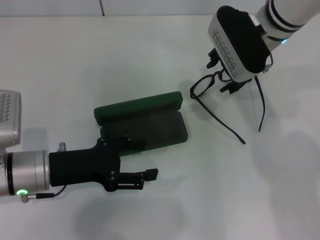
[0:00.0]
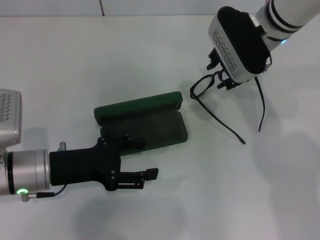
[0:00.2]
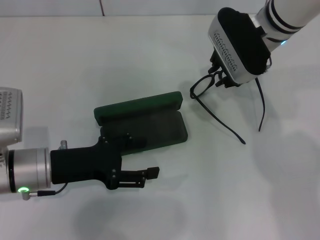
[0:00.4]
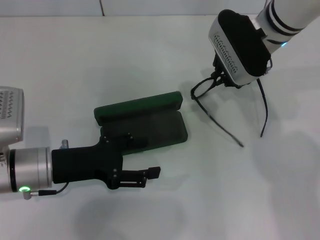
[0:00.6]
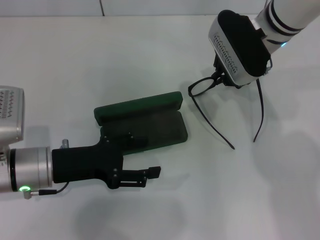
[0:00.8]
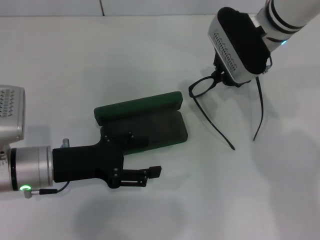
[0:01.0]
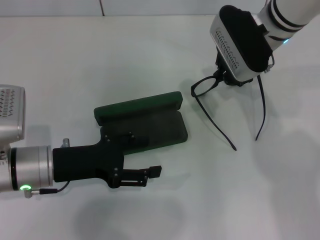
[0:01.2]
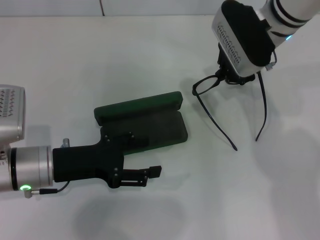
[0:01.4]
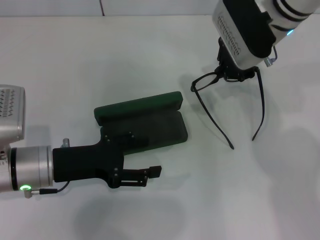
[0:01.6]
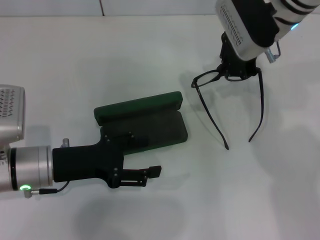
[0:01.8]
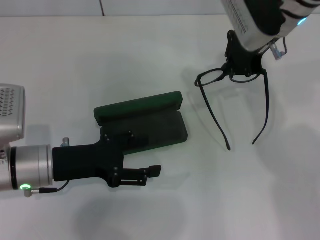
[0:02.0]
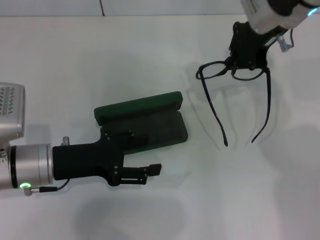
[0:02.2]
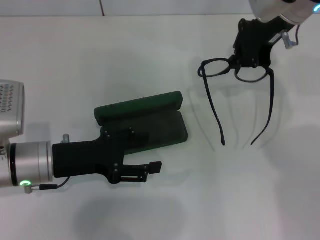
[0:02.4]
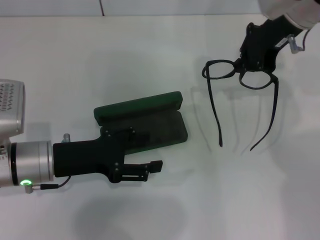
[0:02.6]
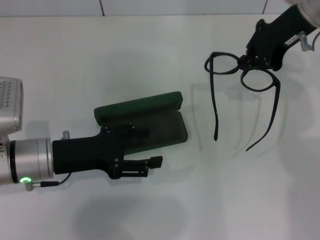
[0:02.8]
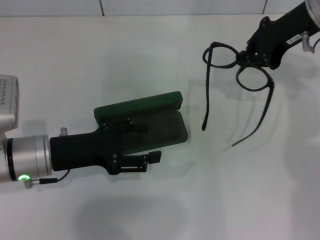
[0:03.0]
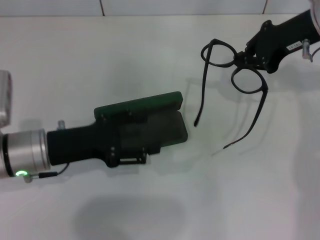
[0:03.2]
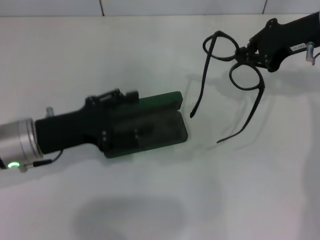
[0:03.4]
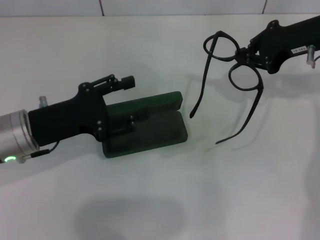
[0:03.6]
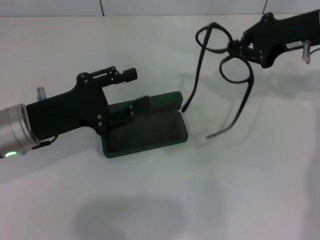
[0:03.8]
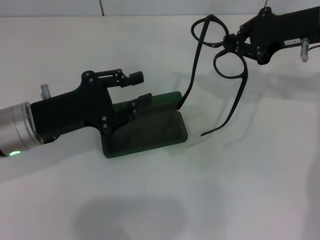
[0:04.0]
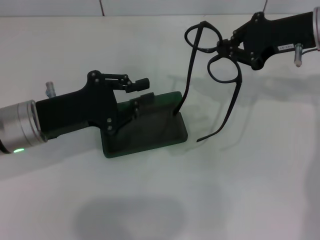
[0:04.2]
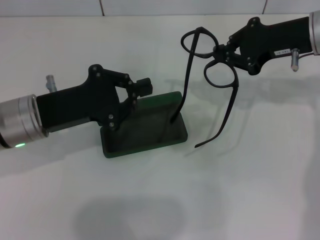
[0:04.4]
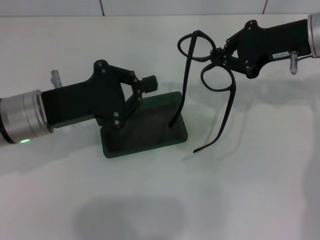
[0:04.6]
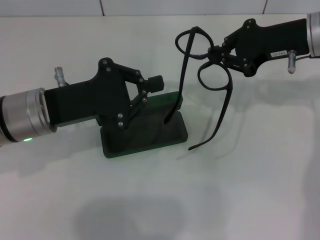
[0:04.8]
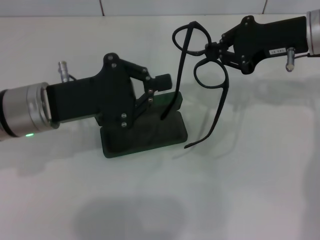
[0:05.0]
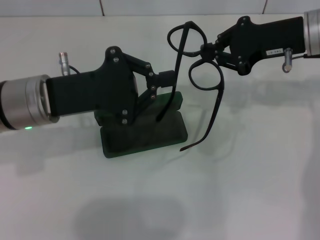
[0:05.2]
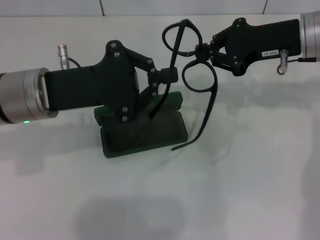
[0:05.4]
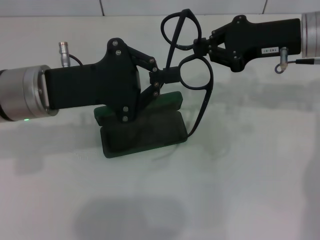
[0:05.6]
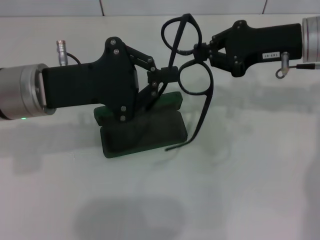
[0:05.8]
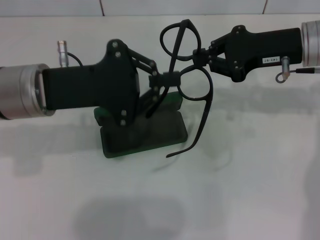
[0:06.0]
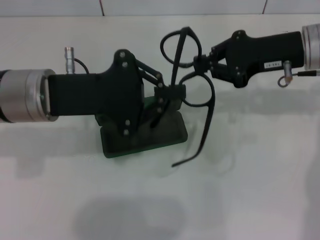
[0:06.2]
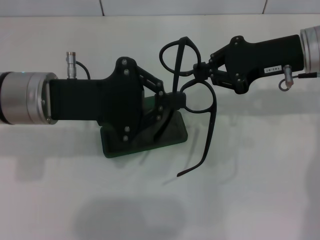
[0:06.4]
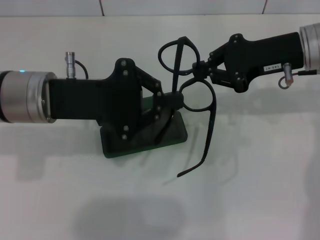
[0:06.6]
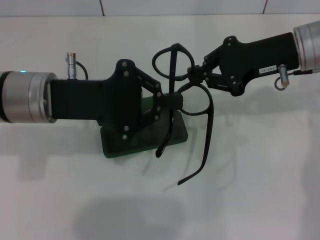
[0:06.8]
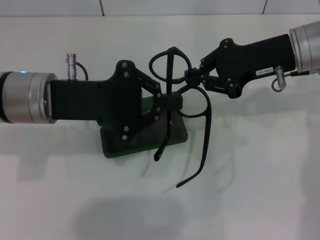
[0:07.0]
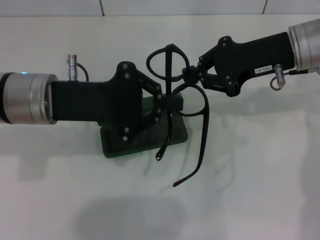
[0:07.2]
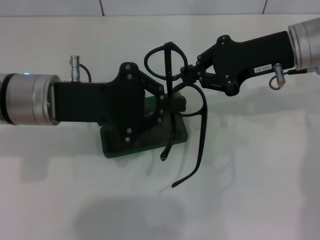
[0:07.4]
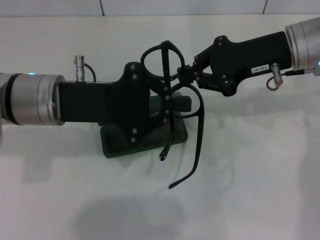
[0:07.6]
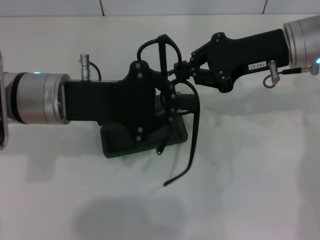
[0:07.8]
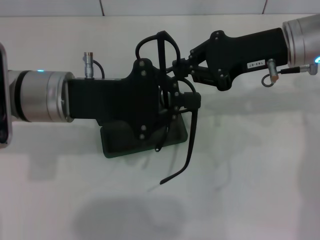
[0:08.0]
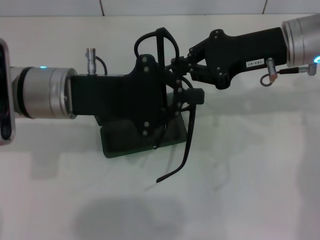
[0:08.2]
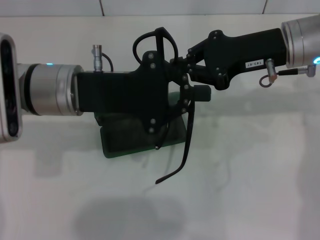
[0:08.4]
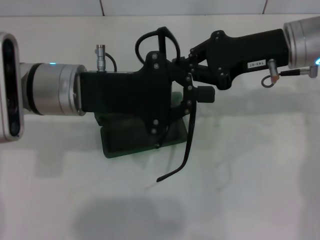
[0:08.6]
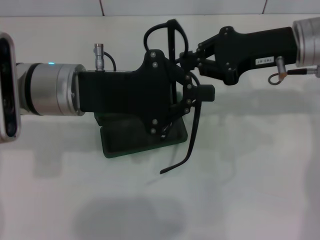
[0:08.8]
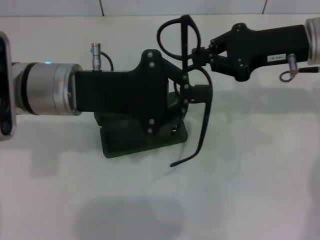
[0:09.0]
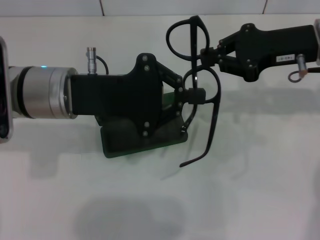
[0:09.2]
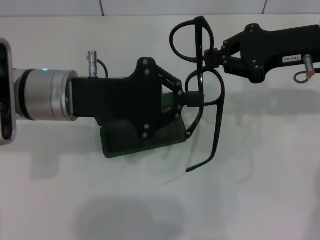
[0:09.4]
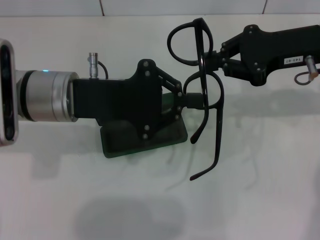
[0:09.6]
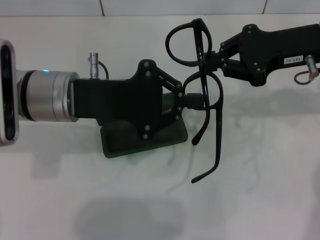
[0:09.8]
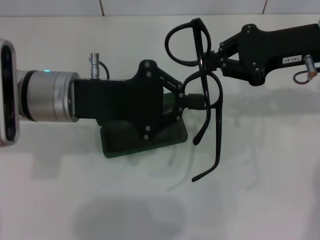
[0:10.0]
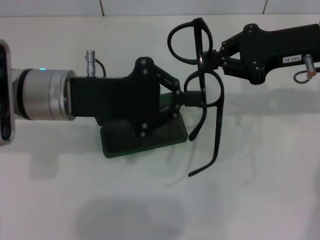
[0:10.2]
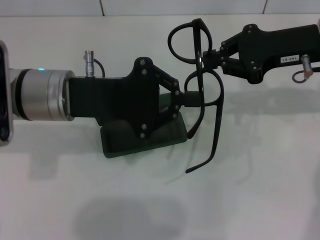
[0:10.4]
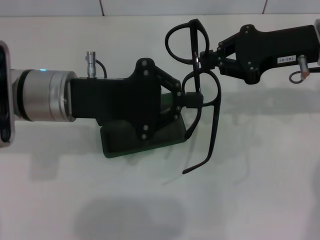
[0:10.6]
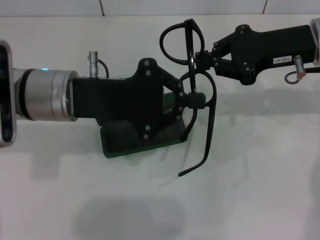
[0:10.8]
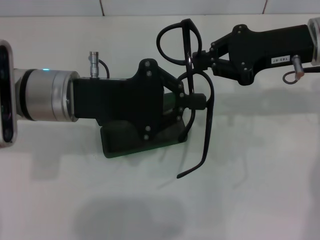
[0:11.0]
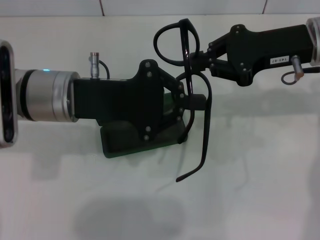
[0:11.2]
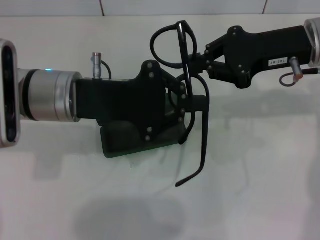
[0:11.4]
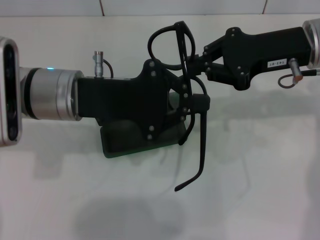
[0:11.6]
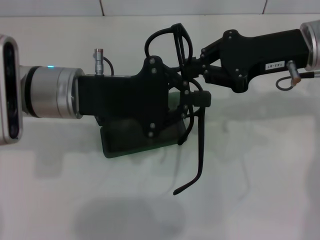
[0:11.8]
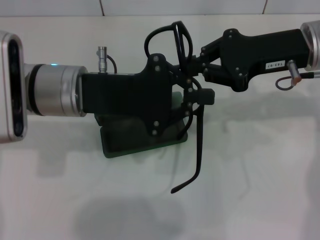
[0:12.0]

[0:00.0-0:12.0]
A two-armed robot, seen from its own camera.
0:00.0 to 0:01.6: The right gripper closes up.
0:01.6 to 0:03.0: The right gripper is displaced to the right by about 10 cm.
0:03.0 to 0:04.4: The left gripper closes.
0:04.4 to 0:06.0: The left gripper moves upward, some 5 cm.
0:06.0 to 0:12.0: There are only small adjustments of the grippers.

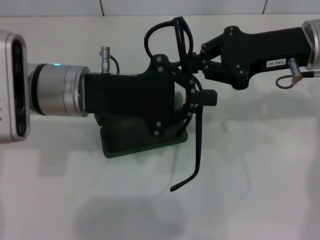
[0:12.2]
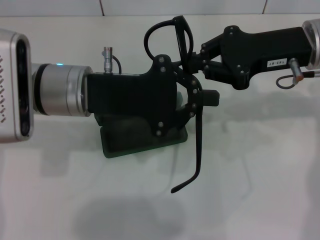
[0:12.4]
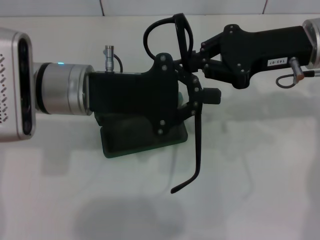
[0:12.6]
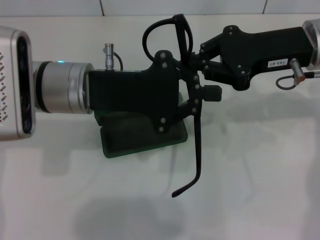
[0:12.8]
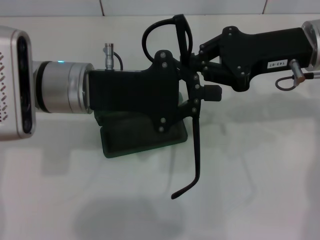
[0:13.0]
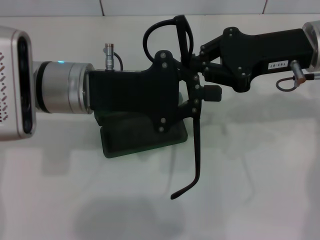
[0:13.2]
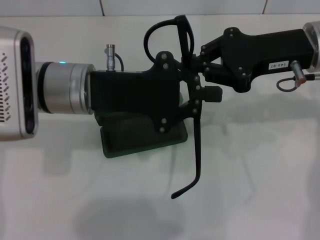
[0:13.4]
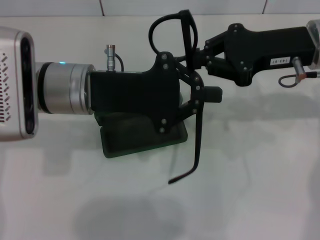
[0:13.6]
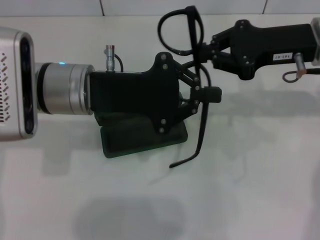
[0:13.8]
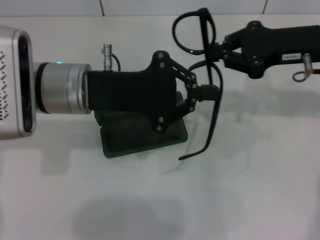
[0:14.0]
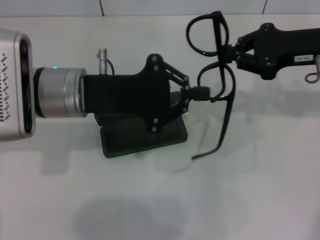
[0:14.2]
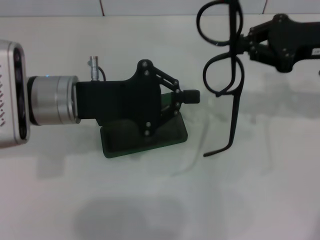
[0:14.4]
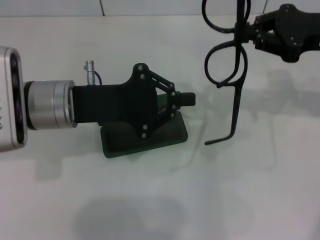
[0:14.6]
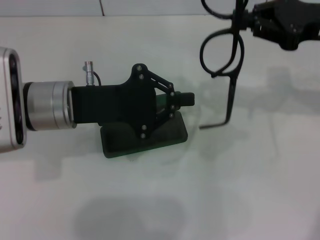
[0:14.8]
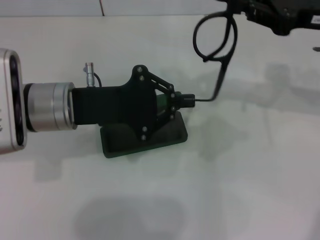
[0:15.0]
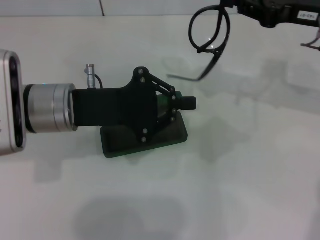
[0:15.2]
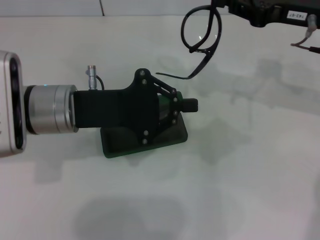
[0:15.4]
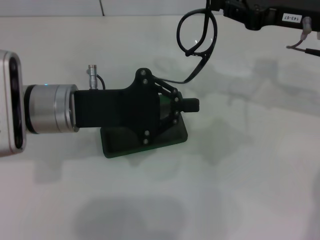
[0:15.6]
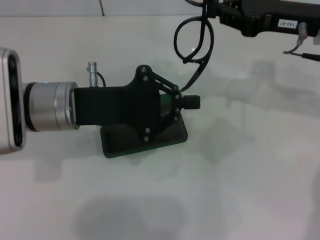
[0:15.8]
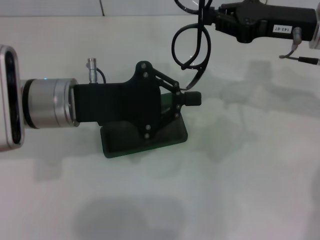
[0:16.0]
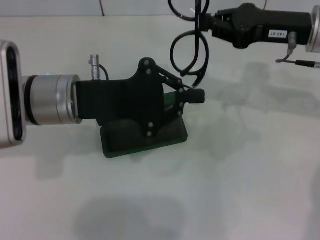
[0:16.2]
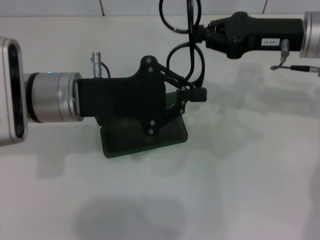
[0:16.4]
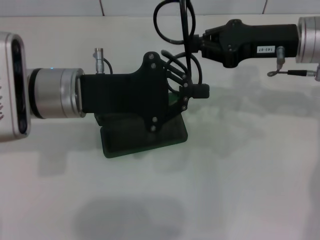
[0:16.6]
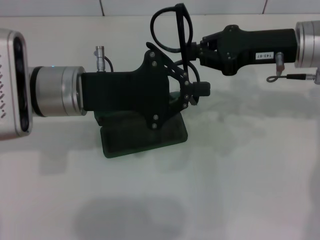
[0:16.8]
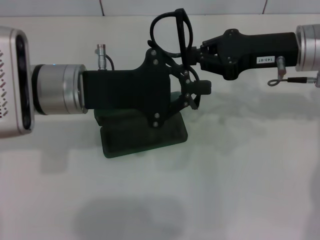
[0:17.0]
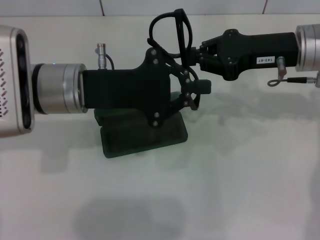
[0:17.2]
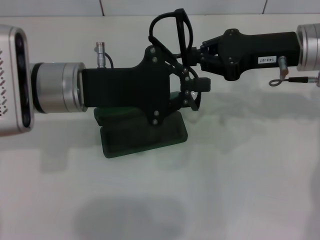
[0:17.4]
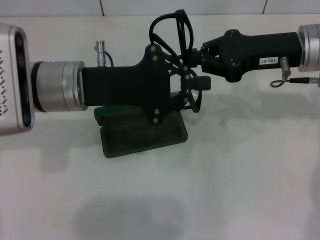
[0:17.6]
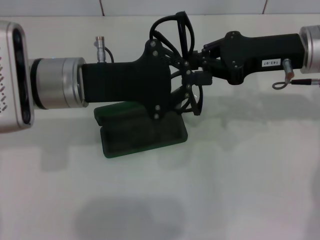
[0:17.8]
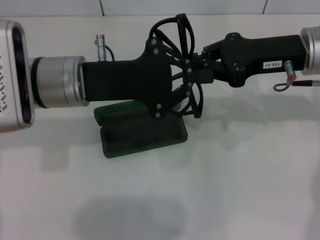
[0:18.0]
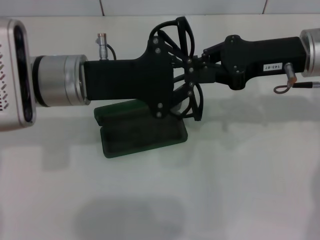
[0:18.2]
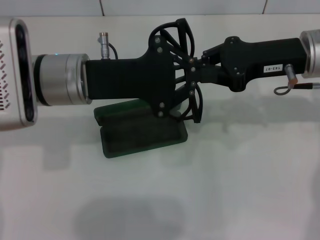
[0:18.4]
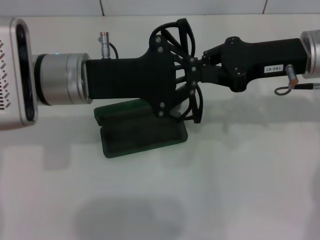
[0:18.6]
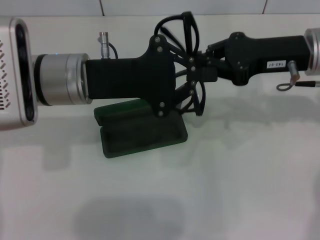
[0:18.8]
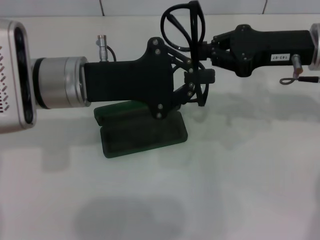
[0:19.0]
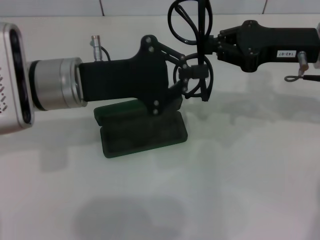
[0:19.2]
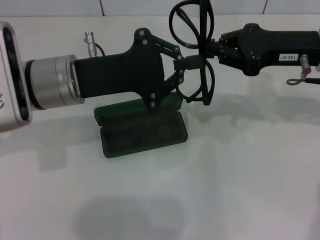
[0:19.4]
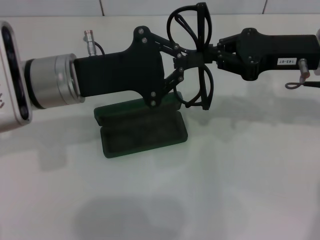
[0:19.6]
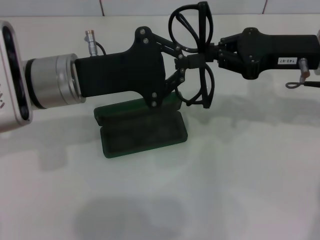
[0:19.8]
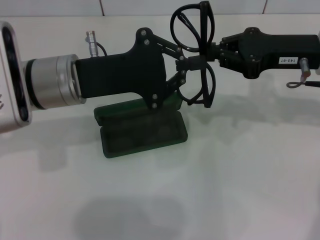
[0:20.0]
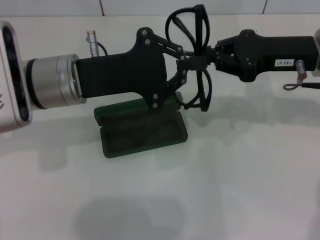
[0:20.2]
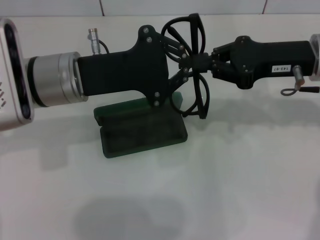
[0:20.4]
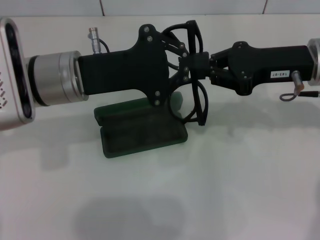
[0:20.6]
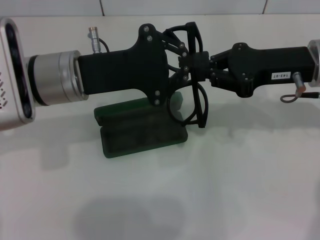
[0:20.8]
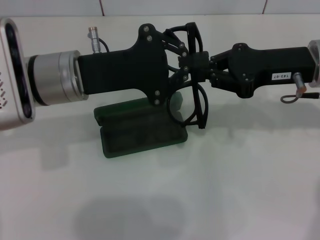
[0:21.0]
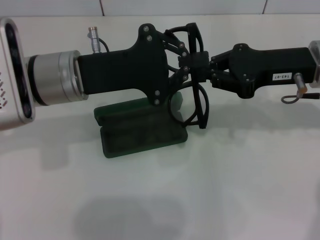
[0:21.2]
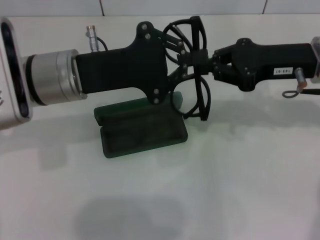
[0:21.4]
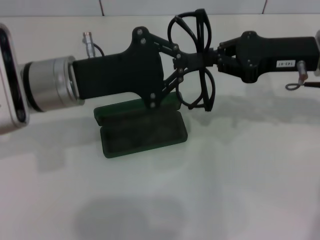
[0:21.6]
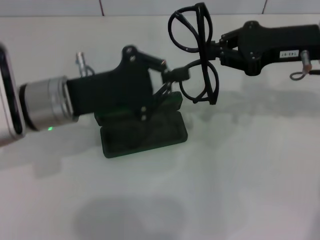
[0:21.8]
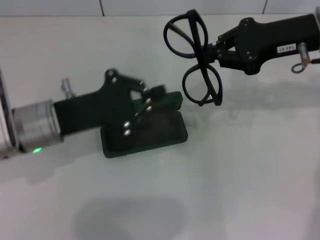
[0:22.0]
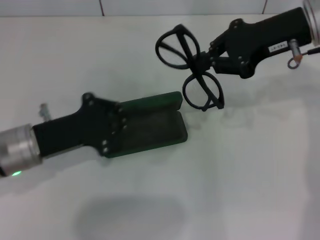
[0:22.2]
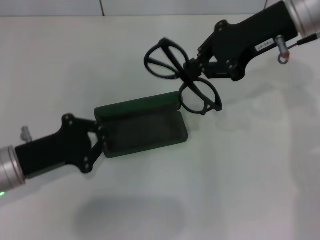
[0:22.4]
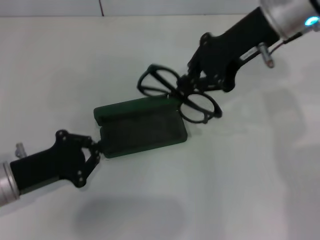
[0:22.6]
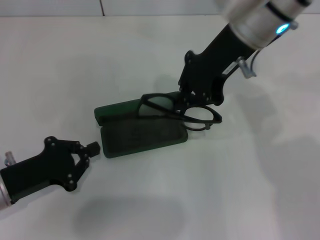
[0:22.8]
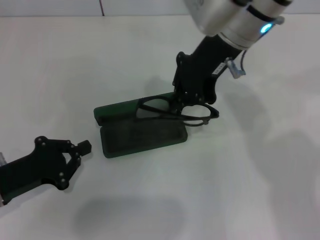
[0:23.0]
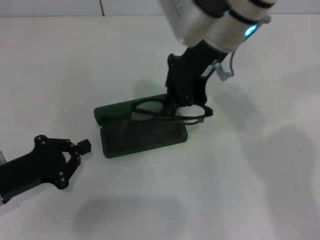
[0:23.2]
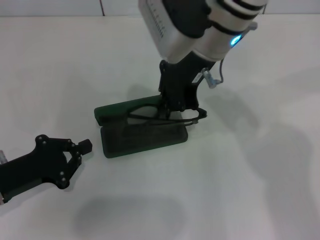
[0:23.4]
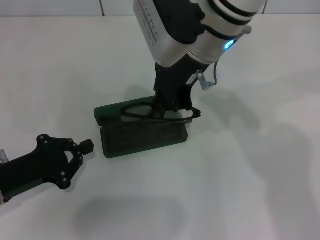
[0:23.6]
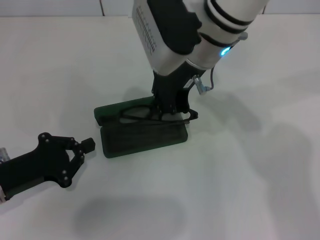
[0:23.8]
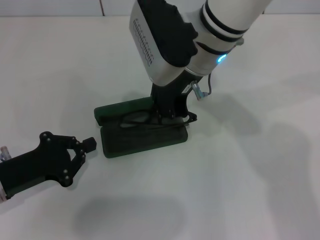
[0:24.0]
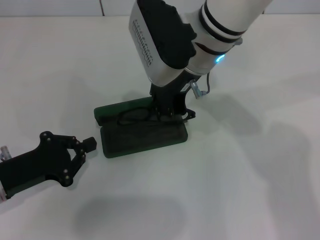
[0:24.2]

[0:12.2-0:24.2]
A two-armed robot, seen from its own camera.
Step, 0:12.2 to 0:18.6: Fold the frame with your left hand.
0:12.2 to 0:13.8: There are only small adjustments of the grippers.
0:18.2 to 0:21.2: The grippers move only a little.
0:21.2 to 0:22.6: The left gripper travels downward, to the left and backward by about 20 cm; the right gripper is displaced to the left and upward by roughly 10 cm.
0:22.6 to 0:24.2: The right gripper shifts roughly 10 cm to the left.
